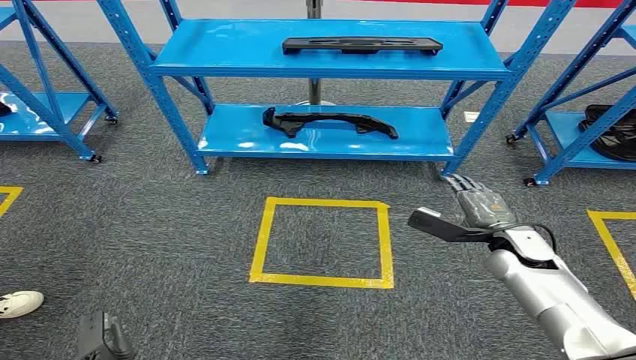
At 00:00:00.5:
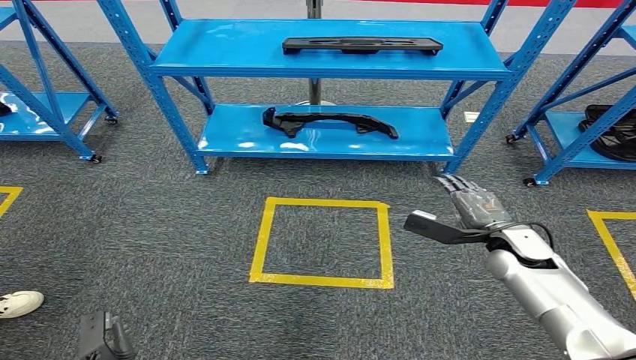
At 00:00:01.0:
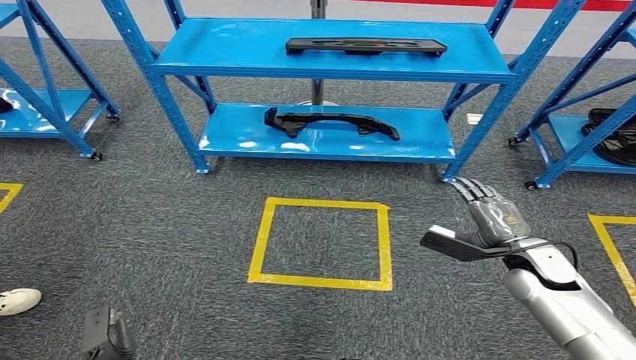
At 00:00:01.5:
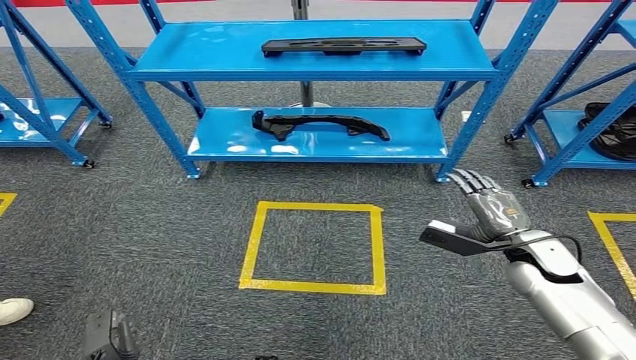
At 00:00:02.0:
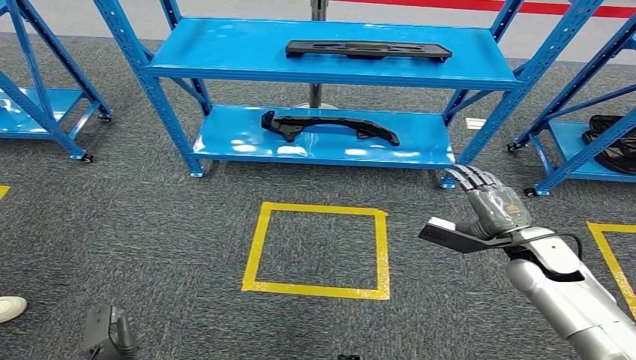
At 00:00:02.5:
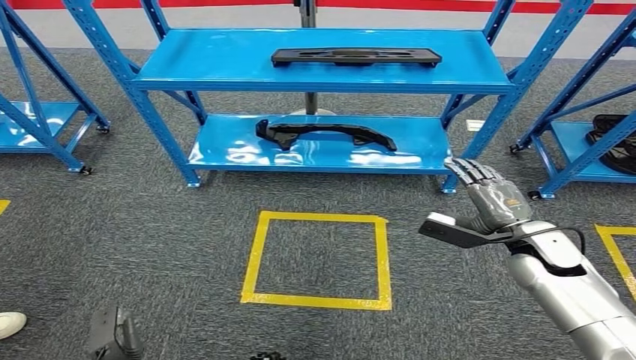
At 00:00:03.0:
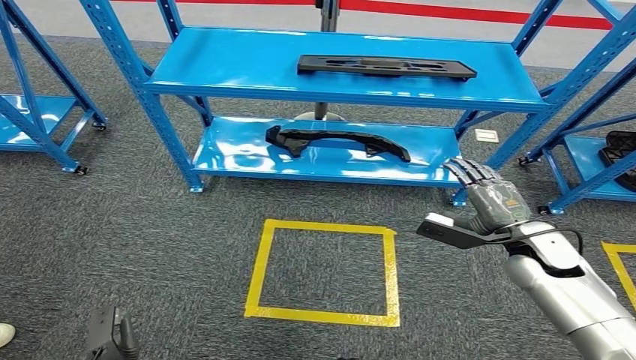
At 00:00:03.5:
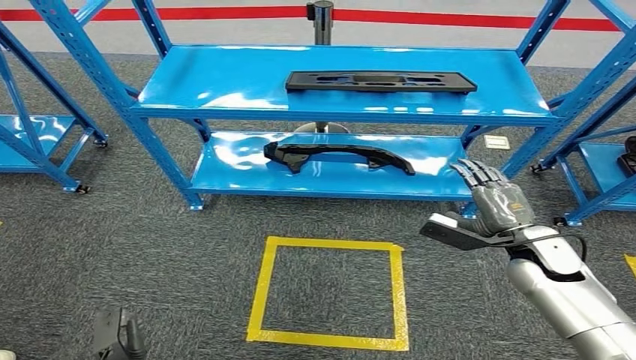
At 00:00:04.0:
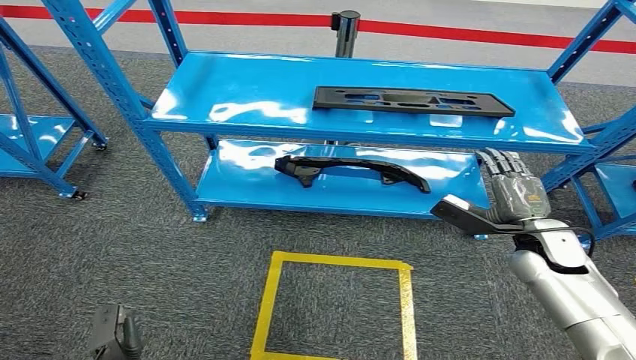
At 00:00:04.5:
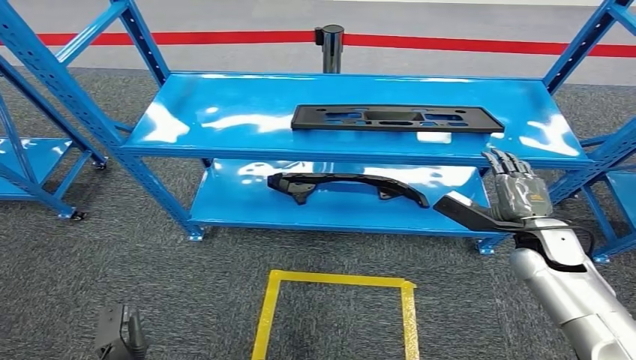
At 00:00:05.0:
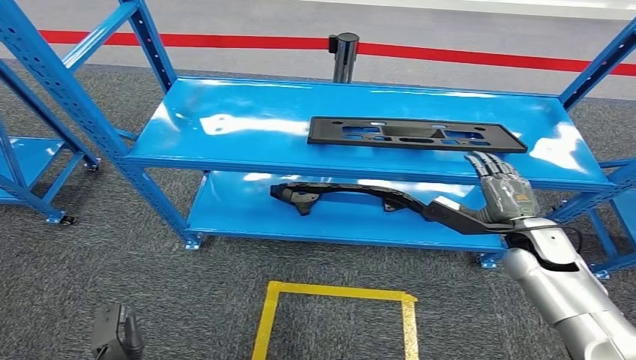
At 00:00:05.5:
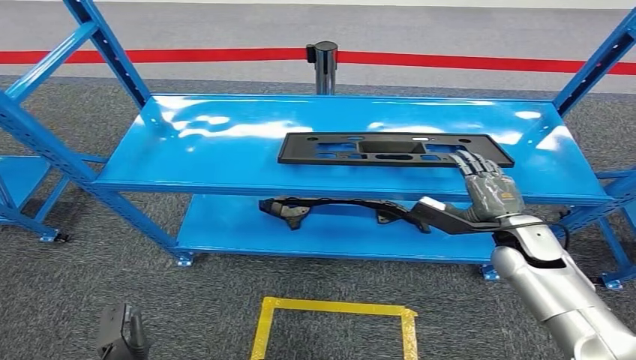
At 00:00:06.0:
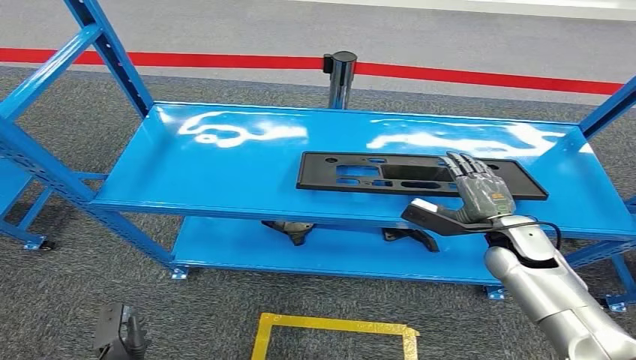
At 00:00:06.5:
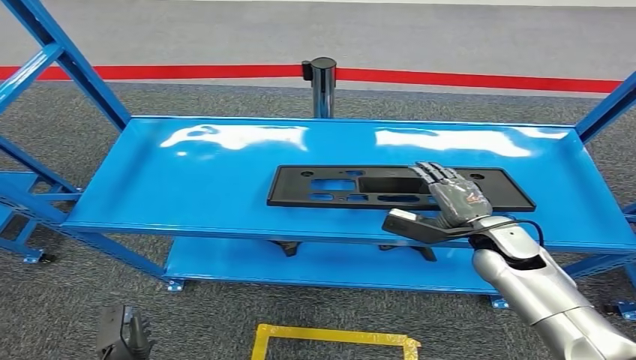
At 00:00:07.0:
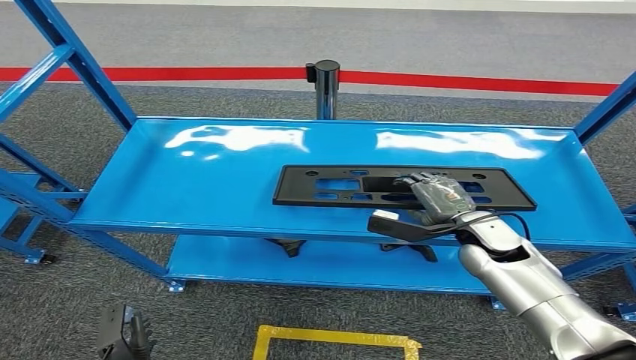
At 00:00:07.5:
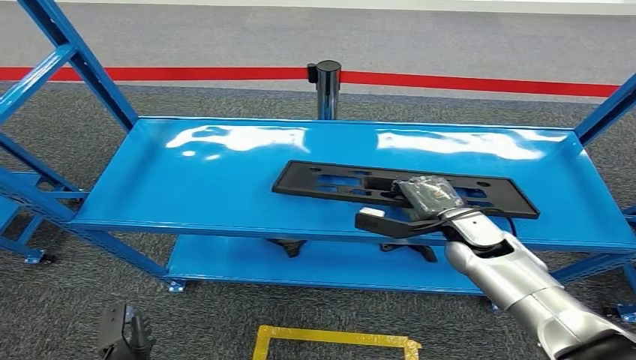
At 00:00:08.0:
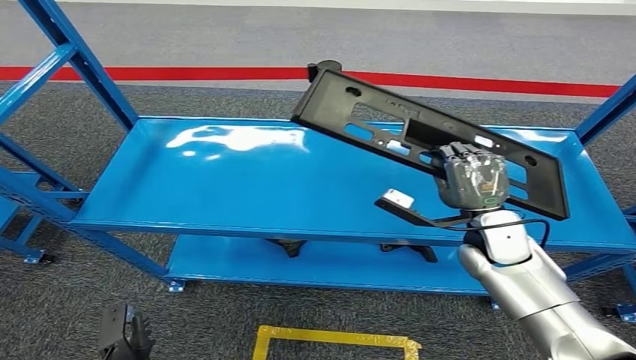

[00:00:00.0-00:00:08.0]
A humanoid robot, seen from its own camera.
Step, 00:00:00.0 to 00:00:08.0: Pick up the large material from the shelf.
